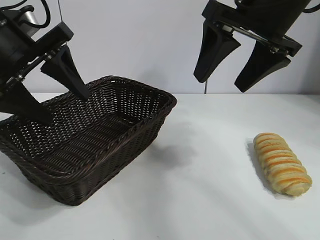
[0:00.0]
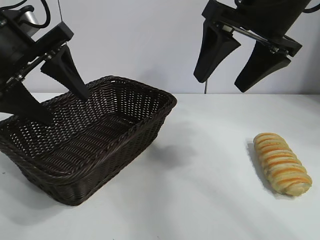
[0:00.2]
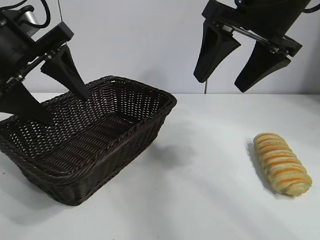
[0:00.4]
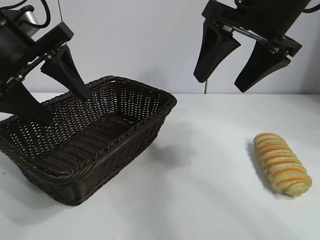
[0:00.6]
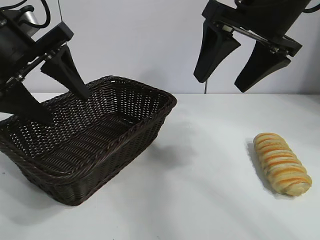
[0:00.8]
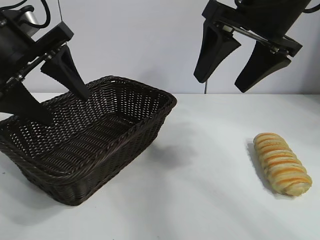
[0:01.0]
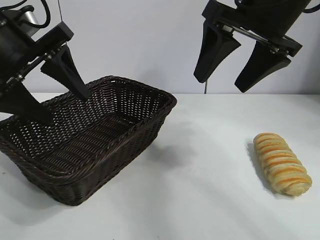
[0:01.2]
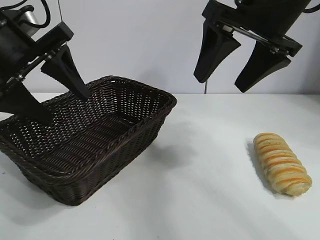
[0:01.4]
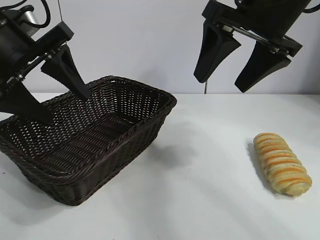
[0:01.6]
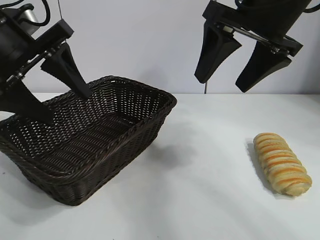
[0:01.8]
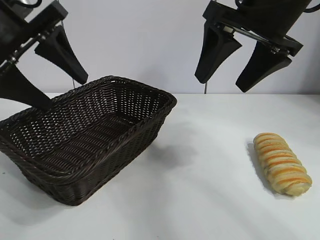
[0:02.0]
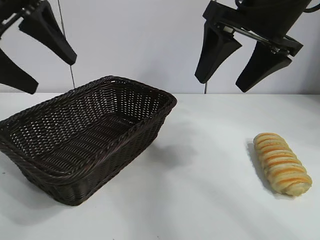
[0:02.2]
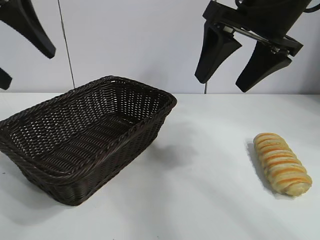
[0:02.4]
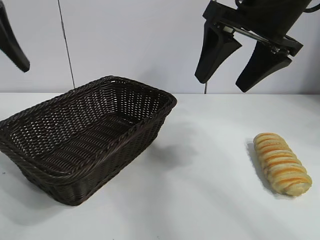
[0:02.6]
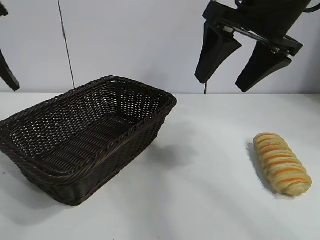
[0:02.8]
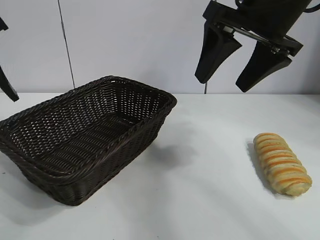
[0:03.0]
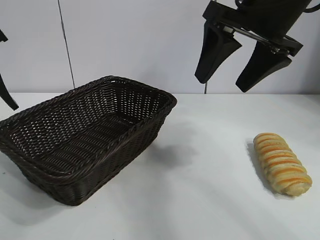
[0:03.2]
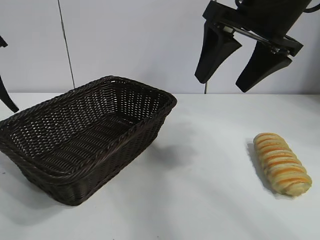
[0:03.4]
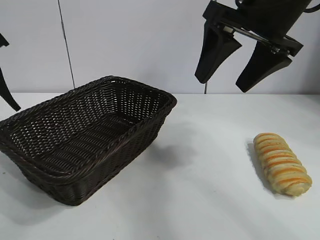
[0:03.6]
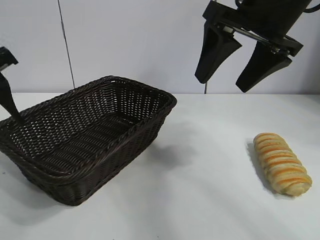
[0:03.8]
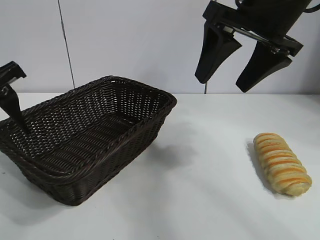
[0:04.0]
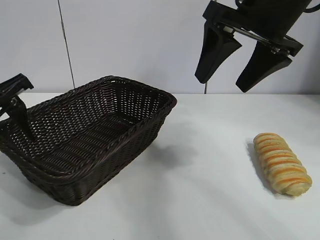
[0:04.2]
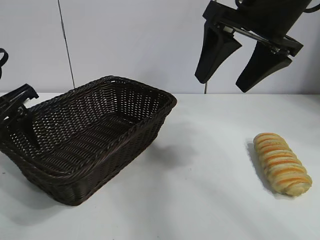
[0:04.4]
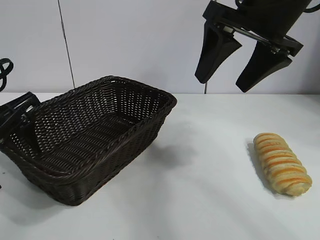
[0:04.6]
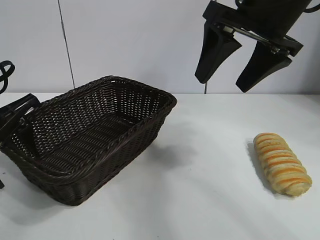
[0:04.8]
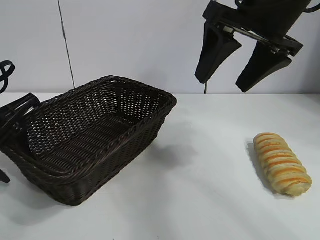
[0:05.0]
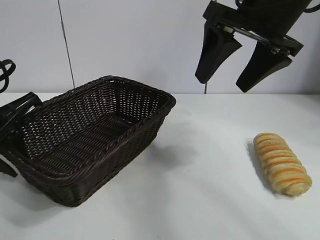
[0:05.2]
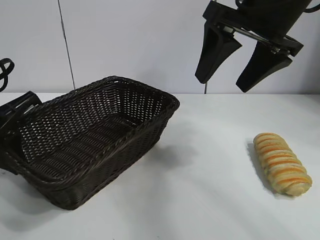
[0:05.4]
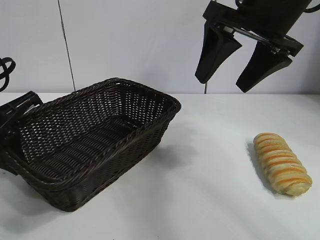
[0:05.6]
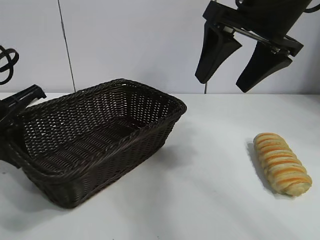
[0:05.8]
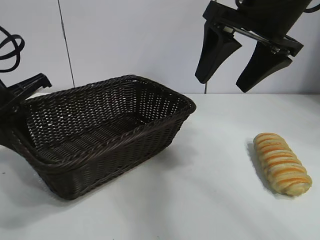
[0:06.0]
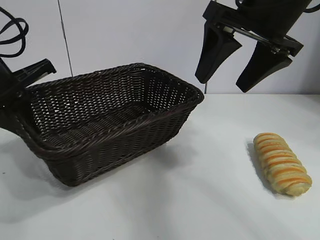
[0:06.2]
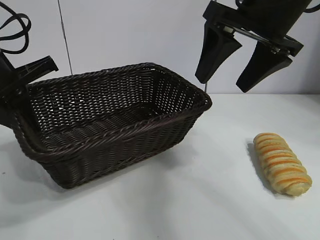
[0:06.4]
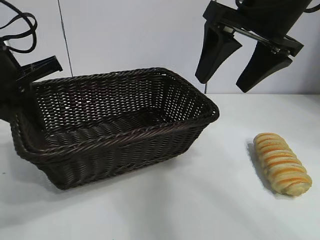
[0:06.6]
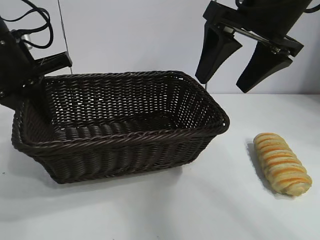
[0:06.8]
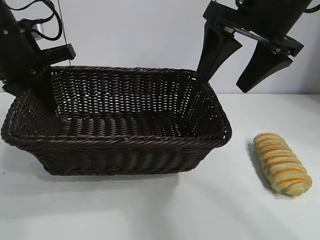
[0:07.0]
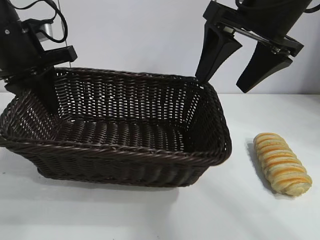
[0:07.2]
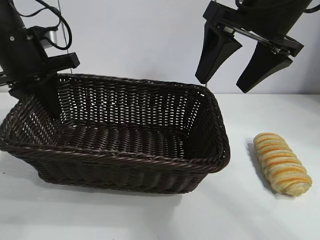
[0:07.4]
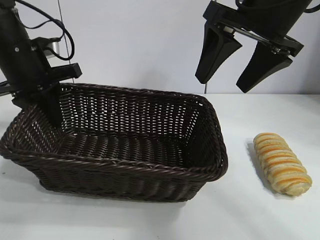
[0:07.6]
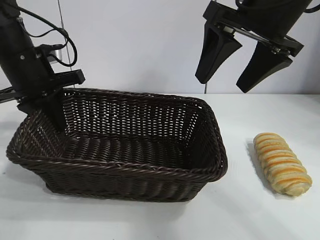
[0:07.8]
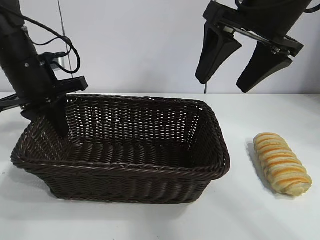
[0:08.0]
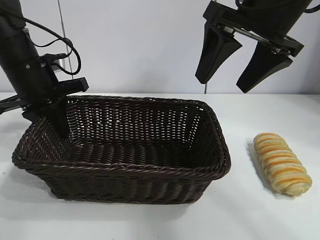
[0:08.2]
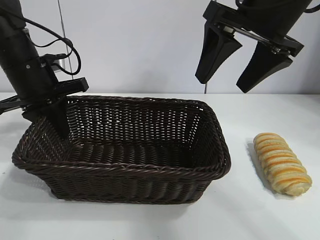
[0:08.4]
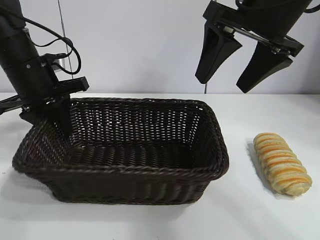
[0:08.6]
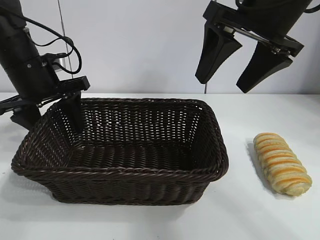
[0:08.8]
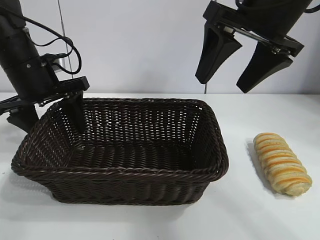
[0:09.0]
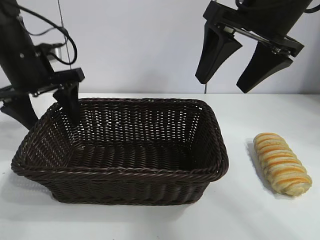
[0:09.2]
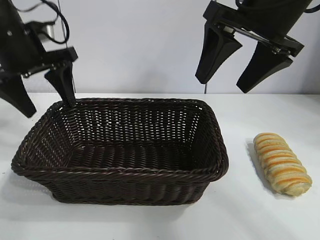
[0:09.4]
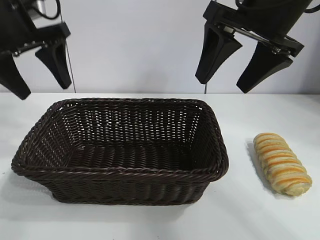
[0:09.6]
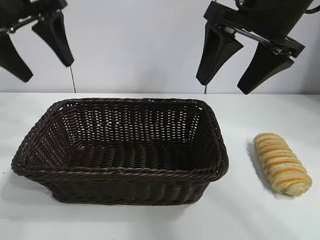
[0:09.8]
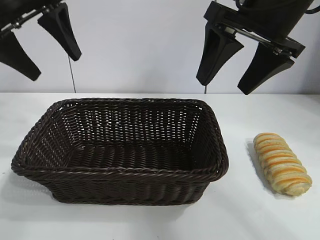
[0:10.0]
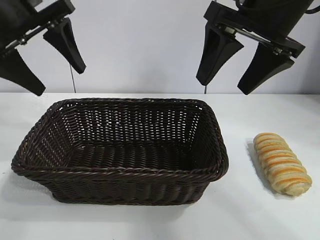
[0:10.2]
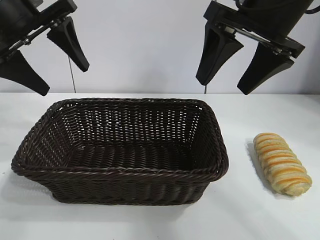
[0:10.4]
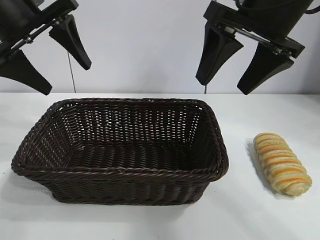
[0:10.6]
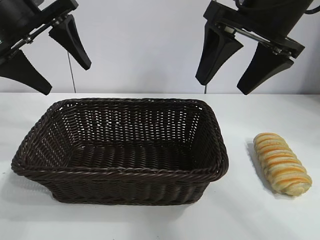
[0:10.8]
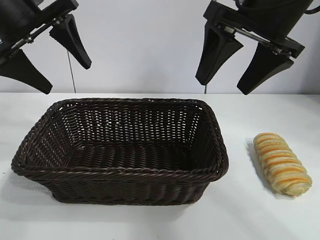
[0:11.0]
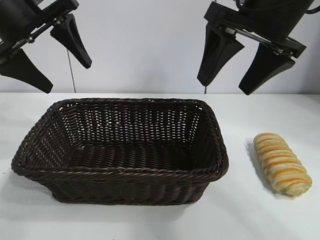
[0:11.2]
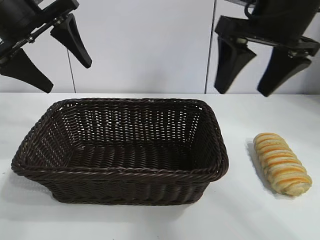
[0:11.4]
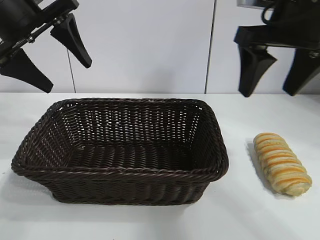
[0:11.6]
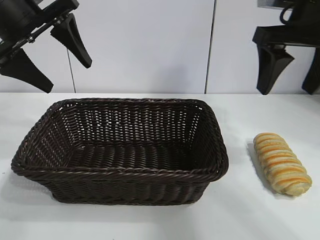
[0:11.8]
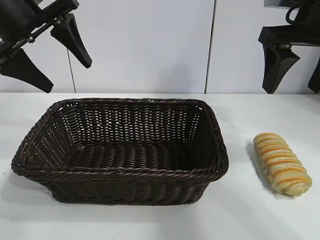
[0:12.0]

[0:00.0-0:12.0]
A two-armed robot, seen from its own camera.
Task of the whole recording: pick up the long bread and put it into the basket.
Step, 0:01.8 to 0:05.4: Grasp the basket with the left gripper.
Step, 0:05.8 to 0:09.0: Place the basket in the center of the table with the left gripper.

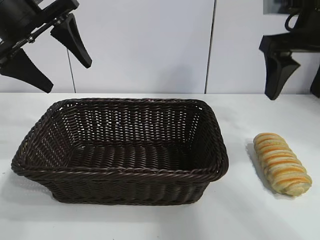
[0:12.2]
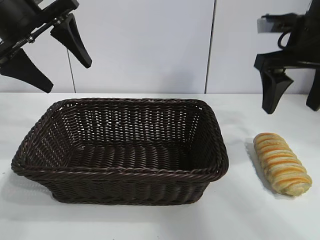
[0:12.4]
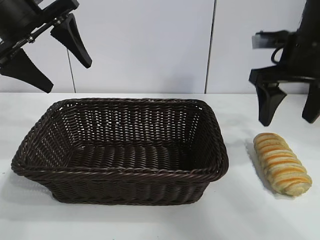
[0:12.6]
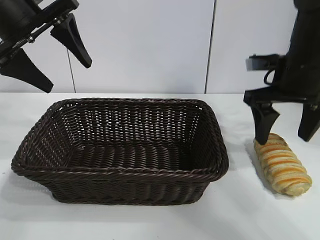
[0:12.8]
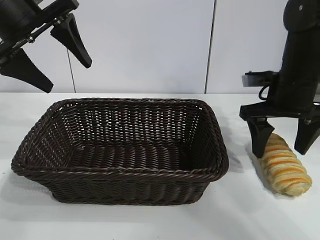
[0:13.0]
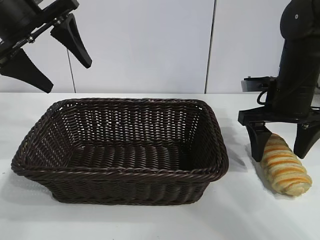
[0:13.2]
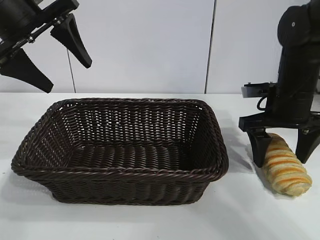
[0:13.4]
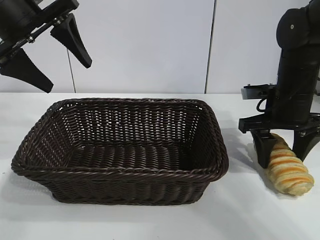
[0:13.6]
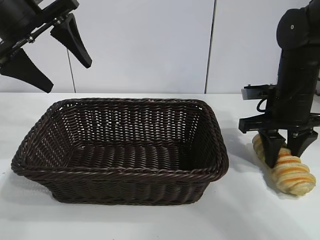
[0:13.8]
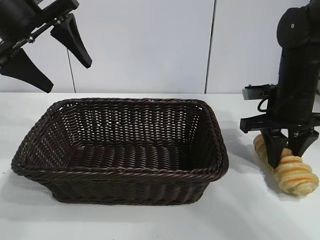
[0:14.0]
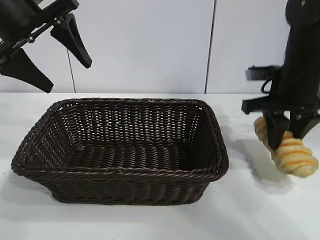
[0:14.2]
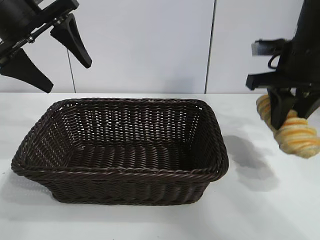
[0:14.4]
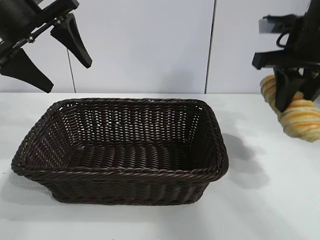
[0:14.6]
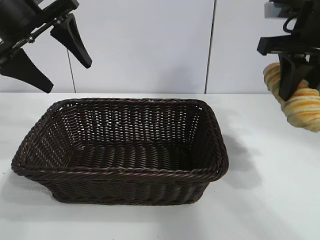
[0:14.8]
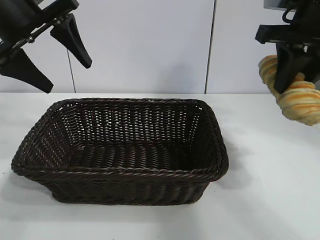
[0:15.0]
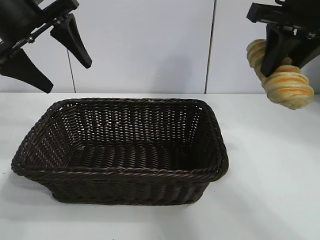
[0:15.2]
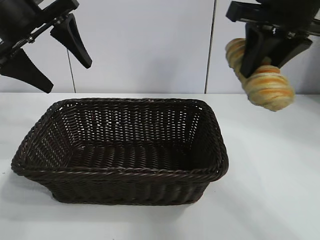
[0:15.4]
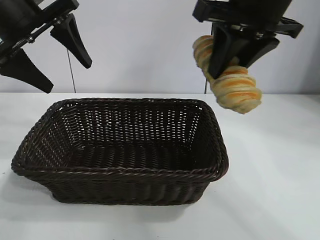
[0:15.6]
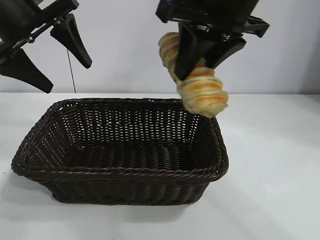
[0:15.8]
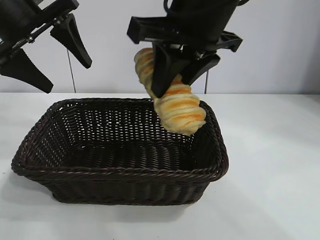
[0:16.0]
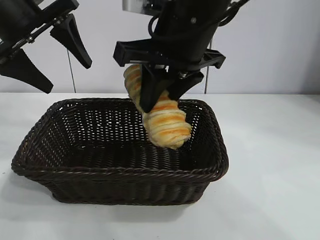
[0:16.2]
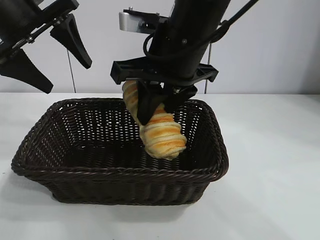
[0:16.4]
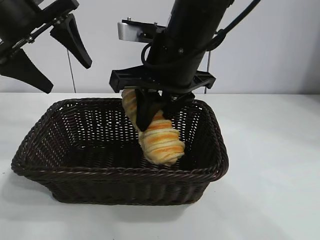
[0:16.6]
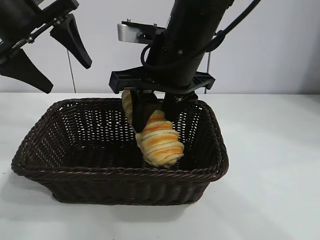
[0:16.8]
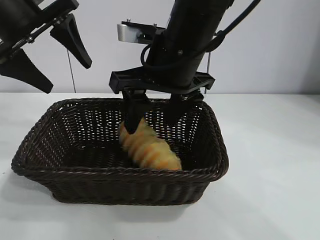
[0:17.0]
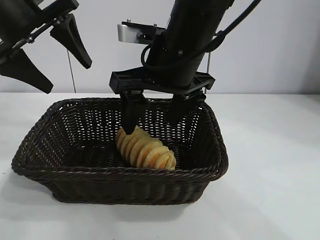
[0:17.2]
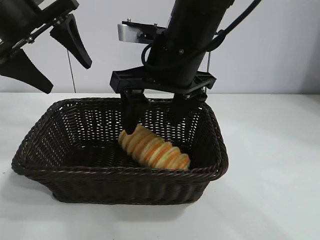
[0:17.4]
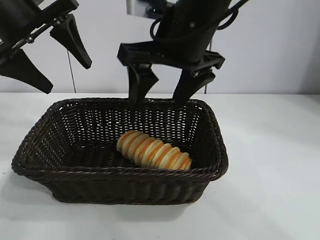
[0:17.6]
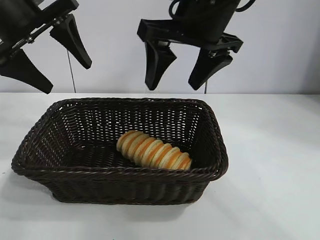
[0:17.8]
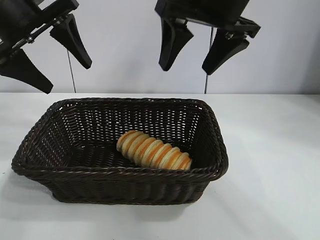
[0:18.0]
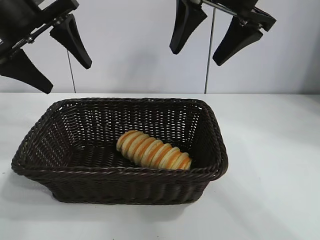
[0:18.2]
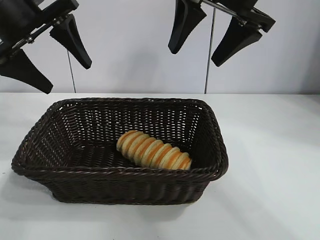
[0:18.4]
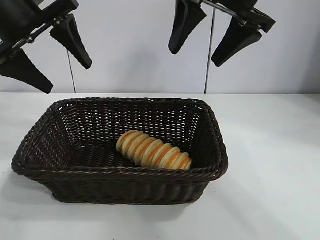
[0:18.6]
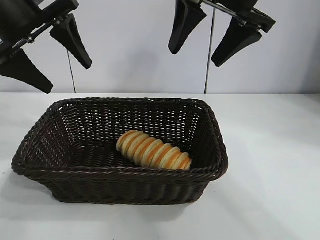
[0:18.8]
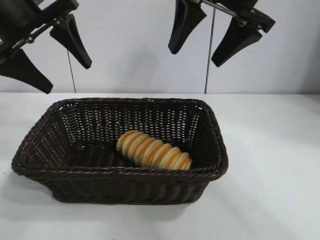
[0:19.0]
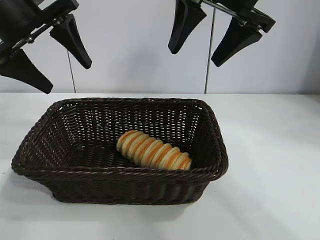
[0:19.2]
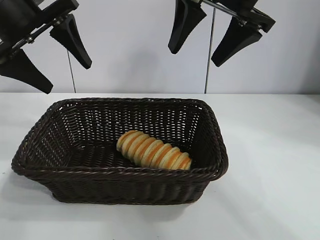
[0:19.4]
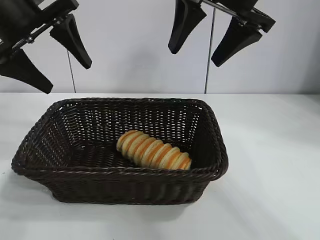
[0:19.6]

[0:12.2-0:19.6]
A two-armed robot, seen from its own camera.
Task of the whole recording: pick up the long bread and put it into the basket.
Step, 0:14.0 to 0:17.4: Place the long bread in the basket with right gripper.

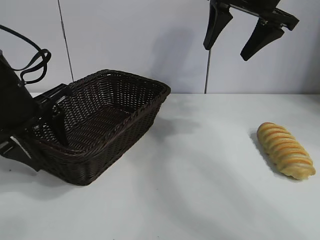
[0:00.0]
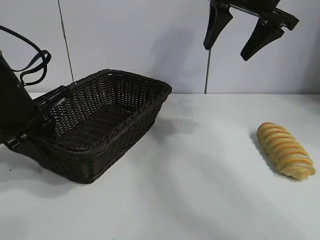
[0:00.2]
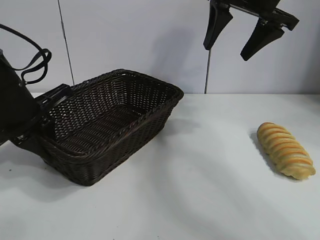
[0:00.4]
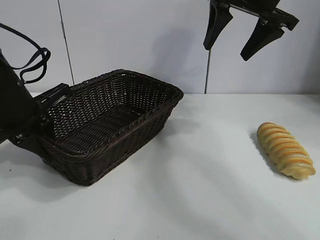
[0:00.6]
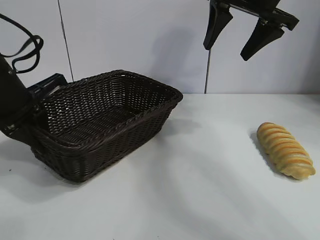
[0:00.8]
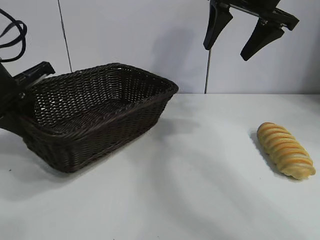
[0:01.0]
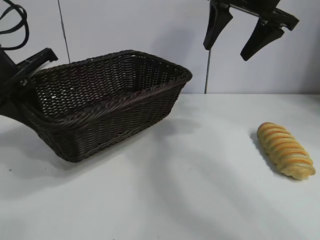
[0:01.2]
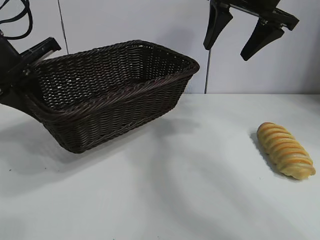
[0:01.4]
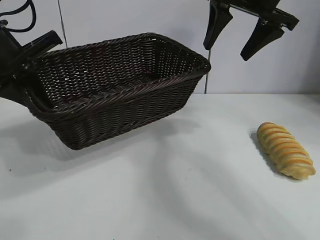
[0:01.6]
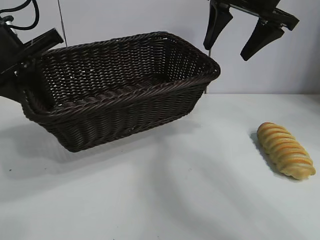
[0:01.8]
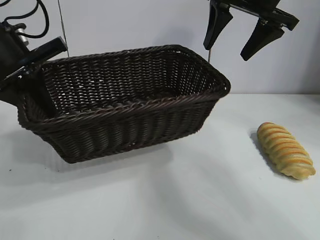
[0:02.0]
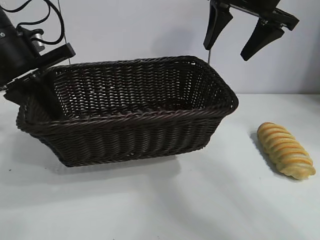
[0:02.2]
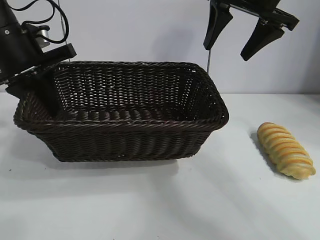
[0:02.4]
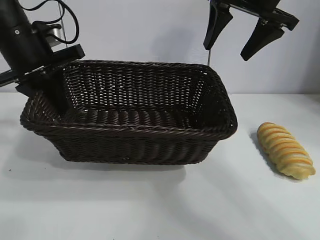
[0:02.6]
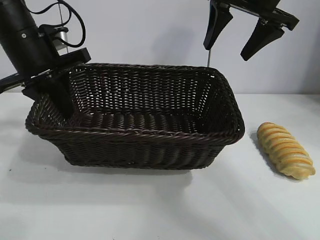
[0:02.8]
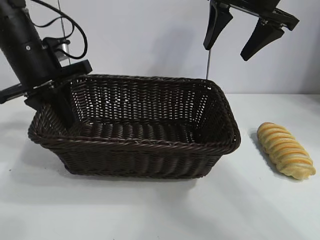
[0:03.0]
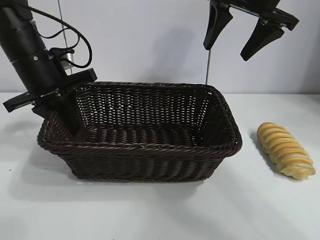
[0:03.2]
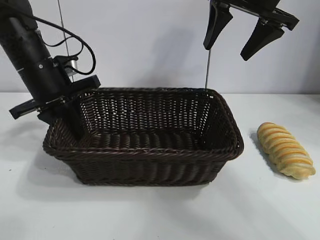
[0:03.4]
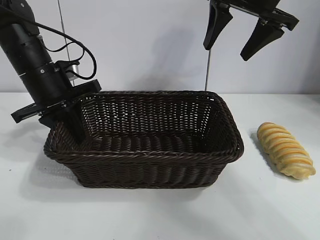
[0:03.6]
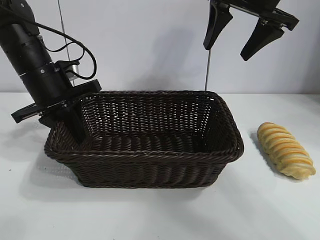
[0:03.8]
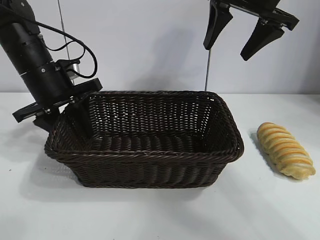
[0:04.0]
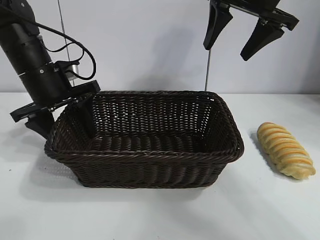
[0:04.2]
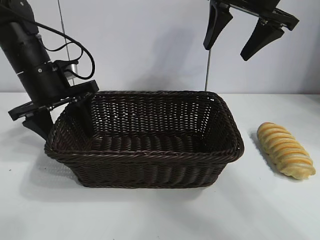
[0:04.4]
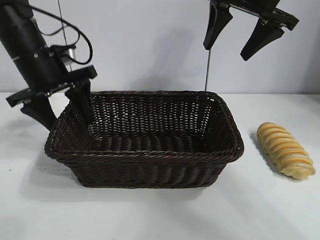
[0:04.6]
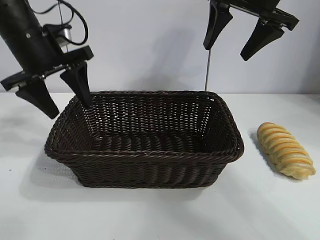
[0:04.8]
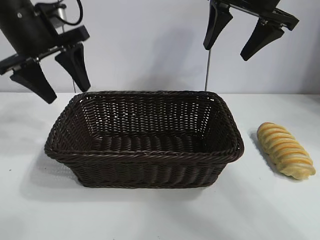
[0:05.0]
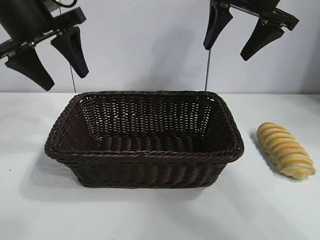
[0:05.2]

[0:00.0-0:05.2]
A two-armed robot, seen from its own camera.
Task of the whole recording: pick up the long bread and put it into the basket.
Step, 0:00.6 to 0:04.2: Place the basket in the center of the table with the left gripper.
